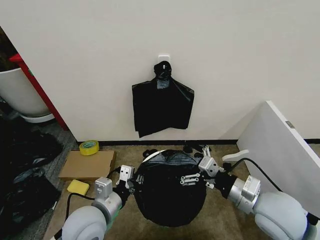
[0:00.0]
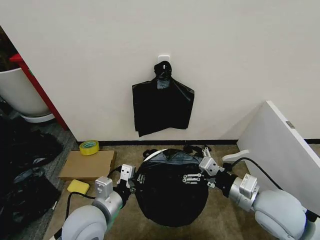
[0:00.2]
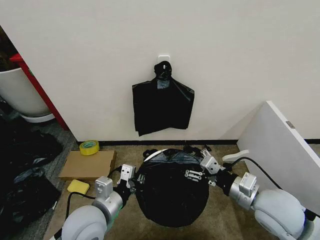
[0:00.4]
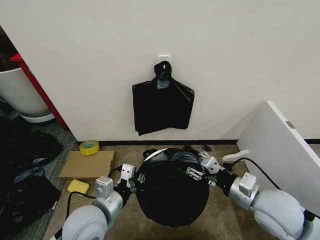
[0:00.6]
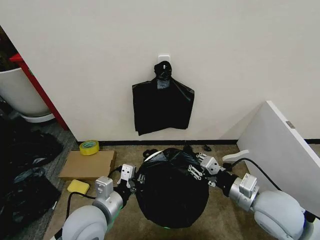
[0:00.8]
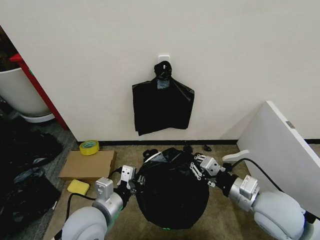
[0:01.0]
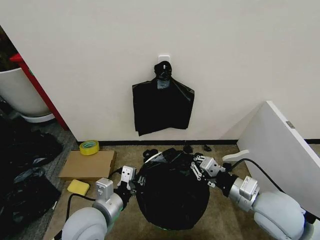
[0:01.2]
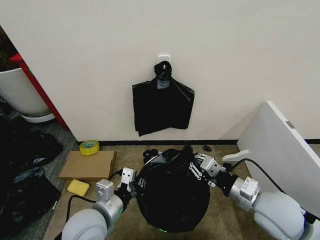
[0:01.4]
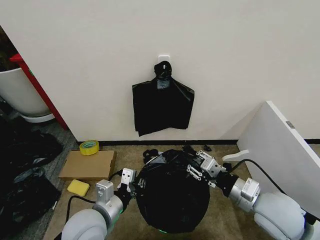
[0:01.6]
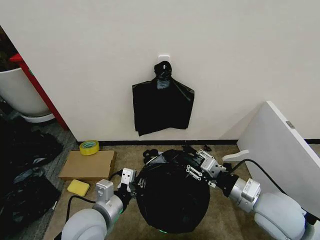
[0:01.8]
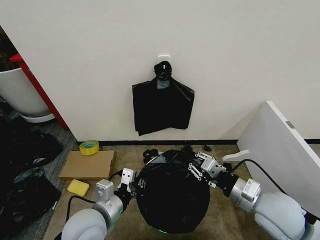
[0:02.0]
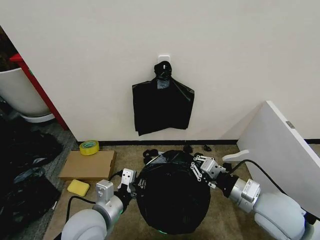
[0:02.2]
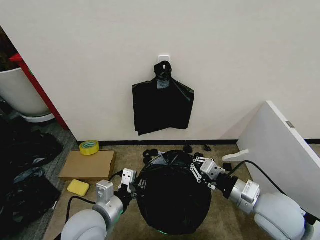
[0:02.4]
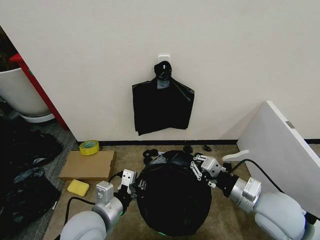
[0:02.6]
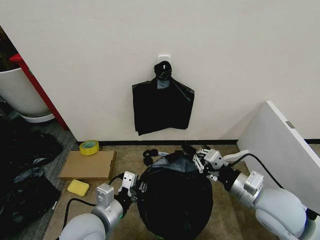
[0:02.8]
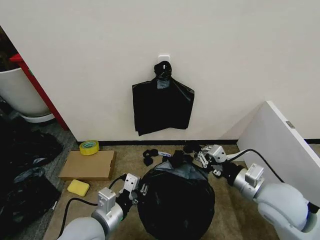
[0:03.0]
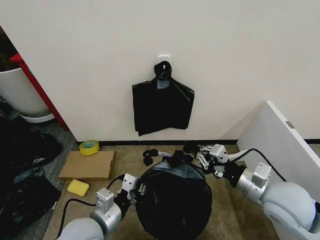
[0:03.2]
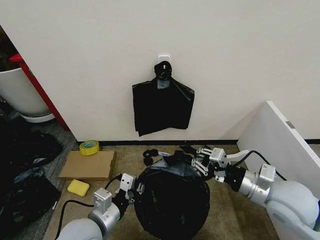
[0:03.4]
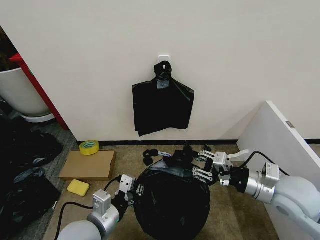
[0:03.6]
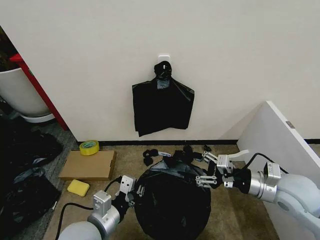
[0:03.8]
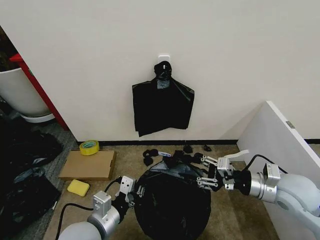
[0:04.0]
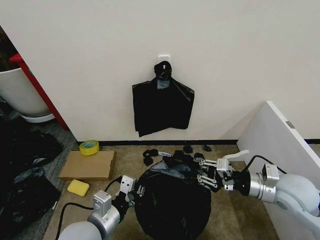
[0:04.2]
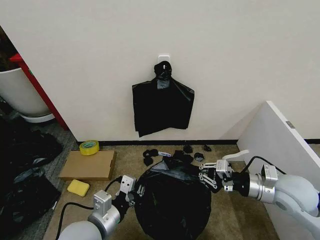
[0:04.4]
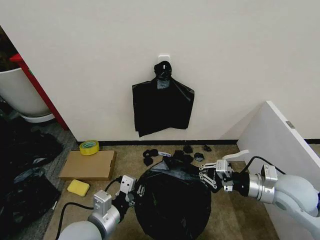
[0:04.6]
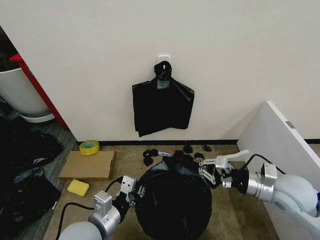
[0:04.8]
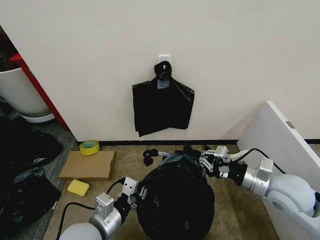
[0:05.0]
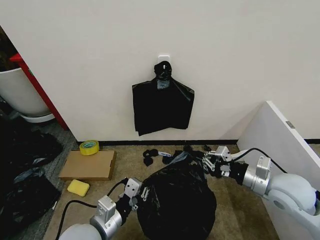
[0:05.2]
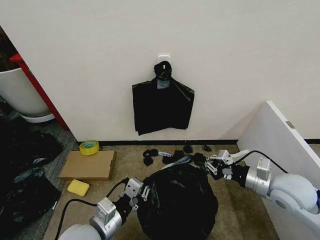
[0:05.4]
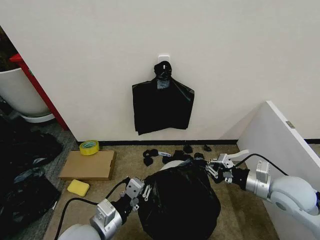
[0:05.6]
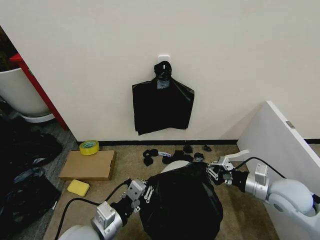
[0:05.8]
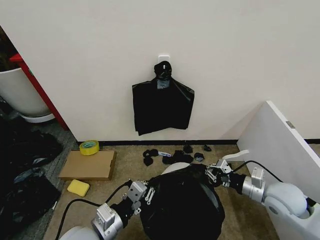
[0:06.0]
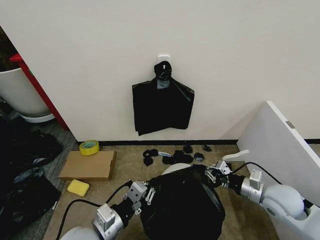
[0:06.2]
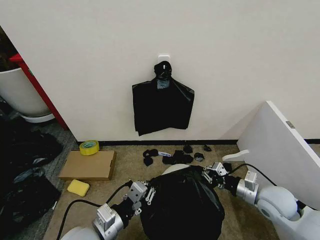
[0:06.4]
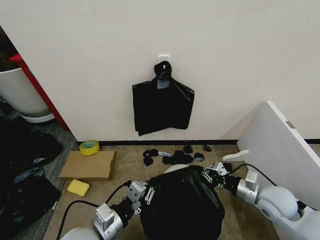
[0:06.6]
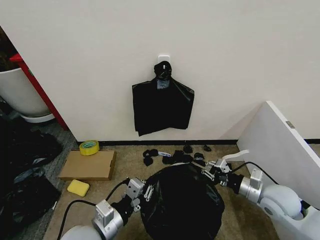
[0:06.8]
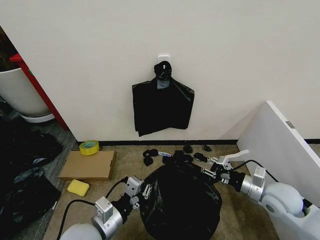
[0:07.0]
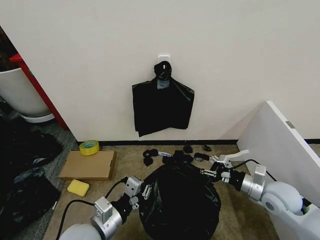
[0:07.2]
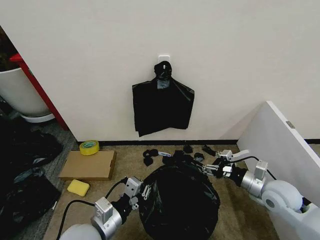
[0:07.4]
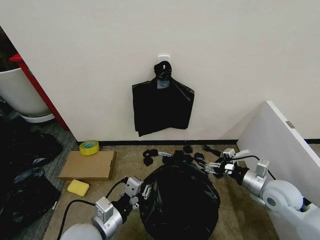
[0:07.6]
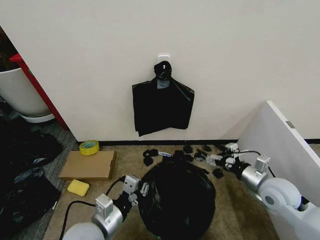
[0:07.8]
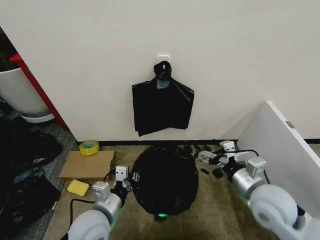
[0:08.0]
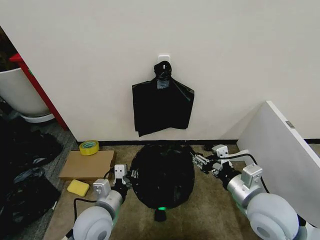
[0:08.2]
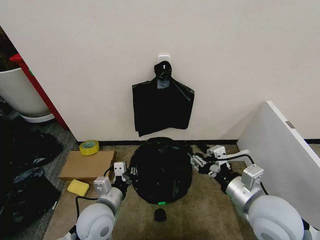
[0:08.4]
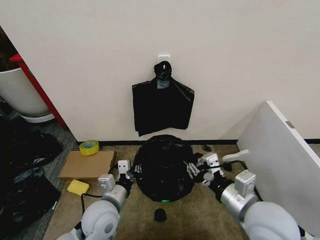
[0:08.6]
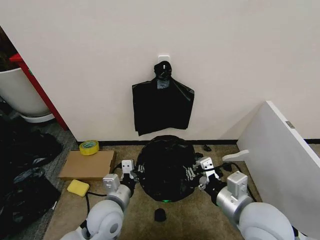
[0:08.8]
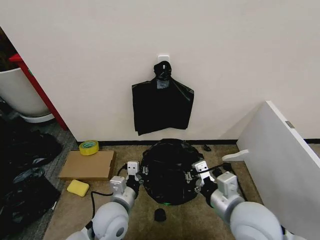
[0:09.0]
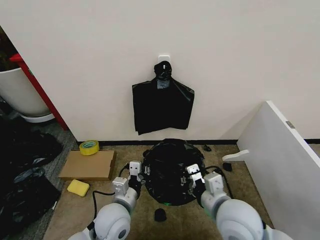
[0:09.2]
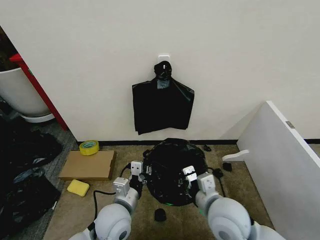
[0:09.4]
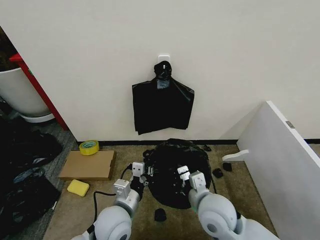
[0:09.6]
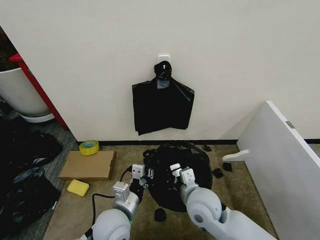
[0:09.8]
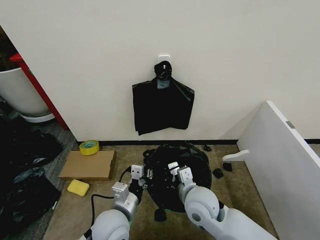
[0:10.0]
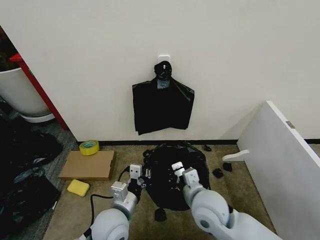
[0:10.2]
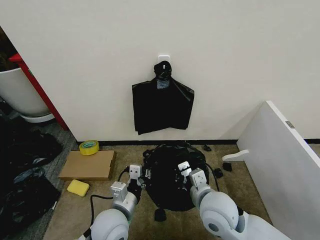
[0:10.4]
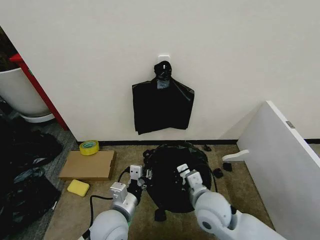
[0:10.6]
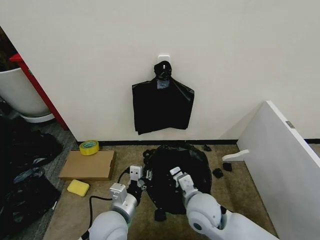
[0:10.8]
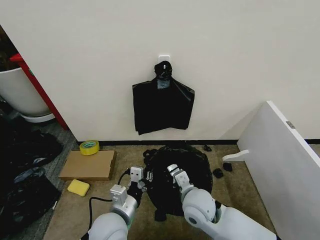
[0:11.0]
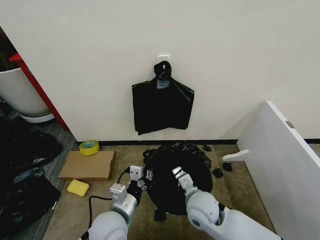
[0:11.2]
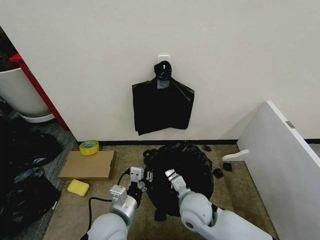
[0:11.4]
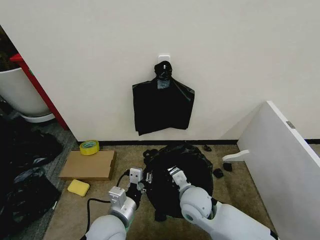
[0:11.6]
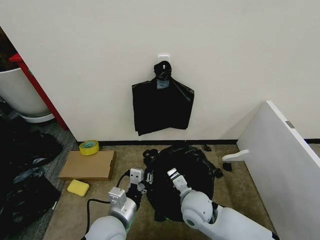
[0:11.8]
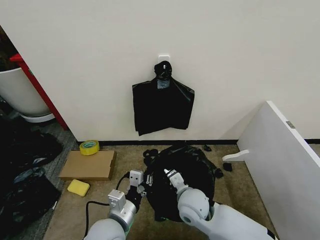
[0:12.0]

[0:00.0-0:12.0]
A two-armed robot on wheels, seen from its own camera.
Task of the whole recording: Place the garbage bag over the trash bin.
0:00.0 to 0:01.6: The right gripper closes its fingers.
0:01.6 to 0:03.0: The grippers move only a little.
0:03.0 to 0:04.4: The right gripper heads to the right, covering about 5 cm, and opens, then closes once more.
0:04.4 to 0:06.0: The right gripper heads downward, covering approximately 5 cm.
0:06.0 to 0:07.6: The right gripper opens its fingers.
0:07.6 to 0:09.0: The left gripper is displaced forward by some 5 cm; the right gripper goes about 20 cm to the left, backward and upward, and closes up.
0:09.0 to 0:10.4: The right gripper moves to the left, roughly 5 cm.
0:10.4 to 0:12.0: The right gripper goes about 5 cm downward.

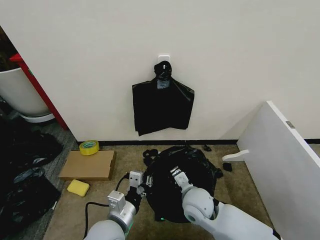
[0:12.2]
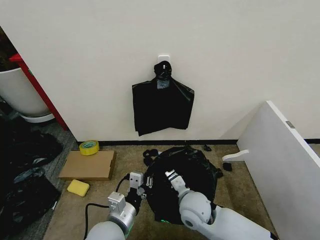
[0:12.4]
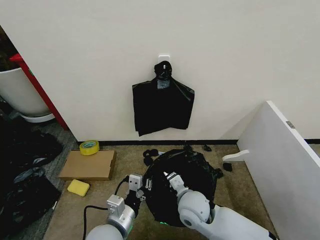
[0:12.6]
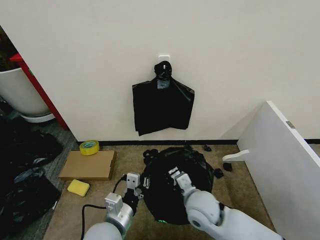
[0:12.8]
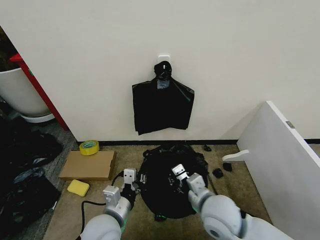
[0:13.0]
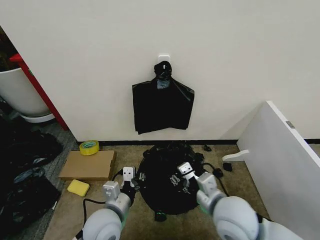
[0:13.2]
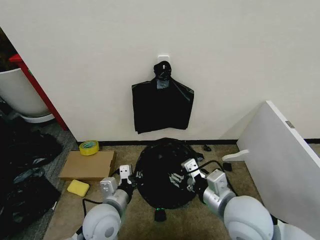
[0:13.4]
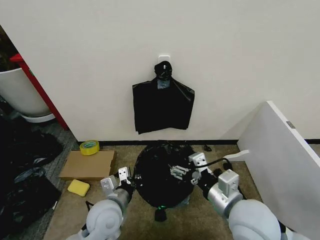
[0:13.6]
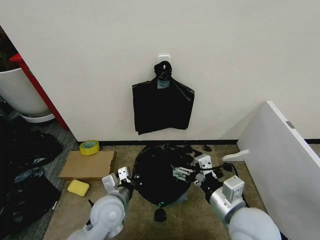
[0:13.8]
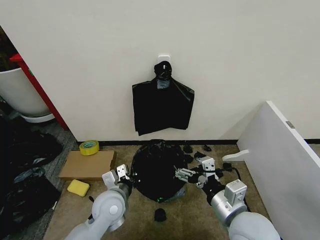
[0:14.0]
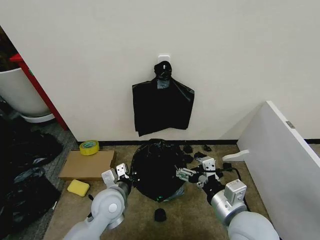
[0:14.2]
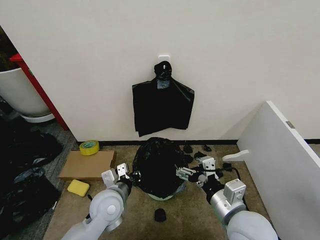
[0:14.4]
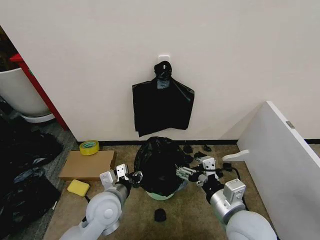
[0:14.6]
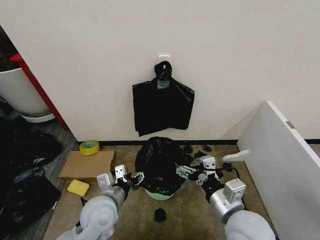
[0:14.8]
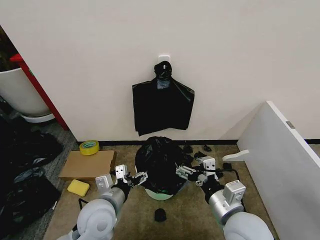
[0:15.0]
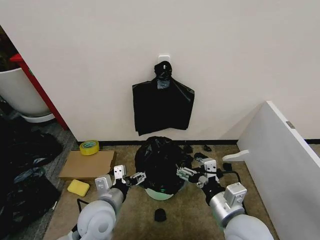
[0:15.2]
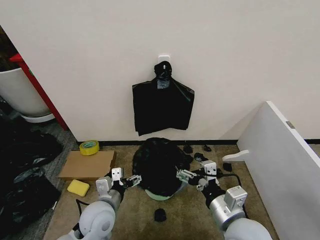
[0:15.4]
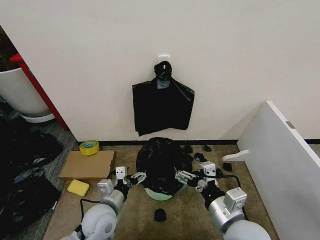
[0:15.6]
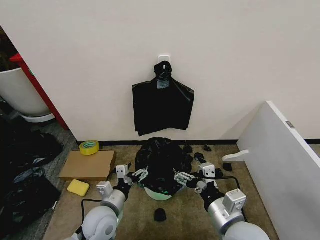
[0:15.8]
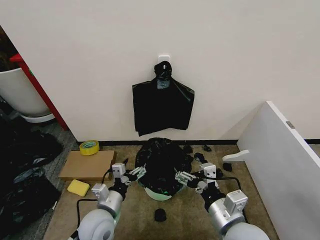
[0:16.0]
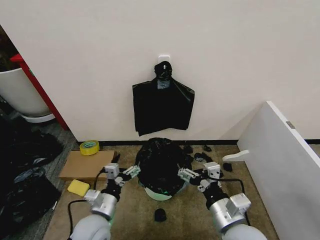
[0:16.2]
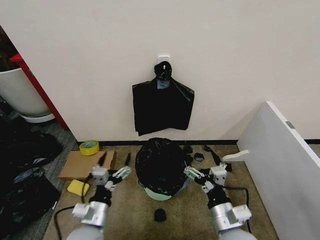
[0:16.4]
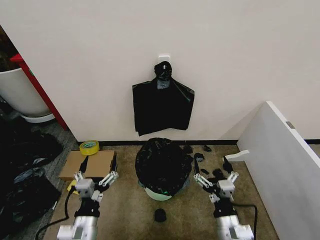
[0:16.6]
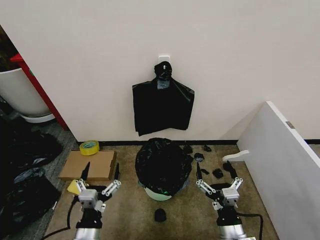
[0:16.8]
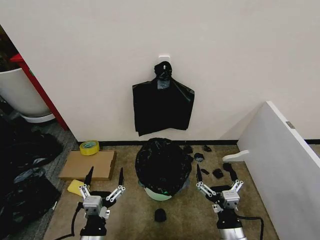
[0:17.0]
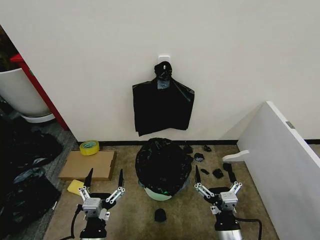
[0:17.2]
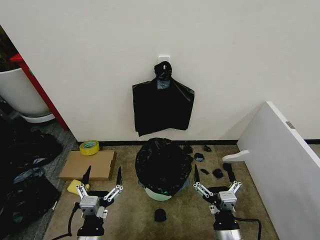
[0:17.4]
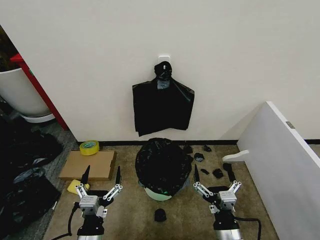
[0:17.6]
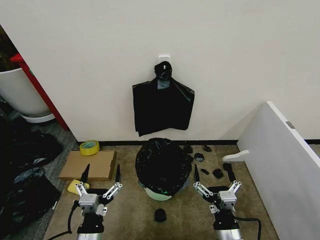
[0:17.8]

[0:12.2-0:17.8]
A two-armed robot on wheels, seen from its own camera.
Task of the whole recording: Place the garbage bag over the trash bin.
0:12.2 to 0:13.6: The right gripper heads upward, to the right and backward, covering some 15 cm, and opens its fingers.
0:13.6 to 0:15.0: The left gripper opens.
0:15.0 to 0:16.4: The right gripper moves downward, about 10 cm, while the left gripper shifts about 10 cm backward and downward.
0:16.4 to 0:17.8: The left gripper travels backward by about 5 cm, while the right gripper moves approximately 5 cm.
